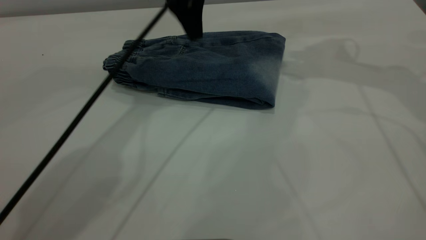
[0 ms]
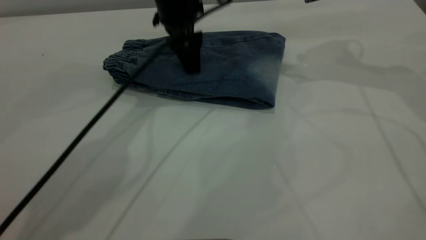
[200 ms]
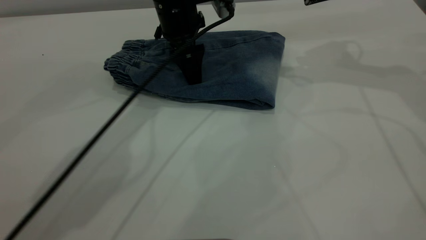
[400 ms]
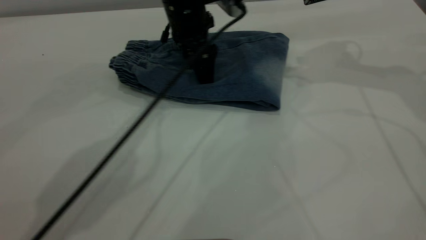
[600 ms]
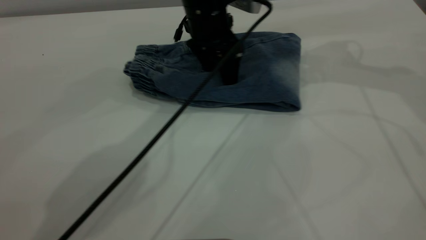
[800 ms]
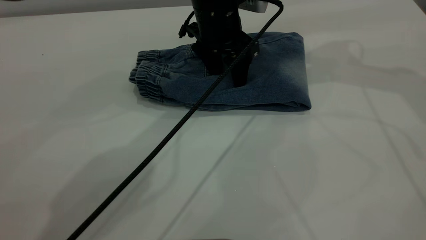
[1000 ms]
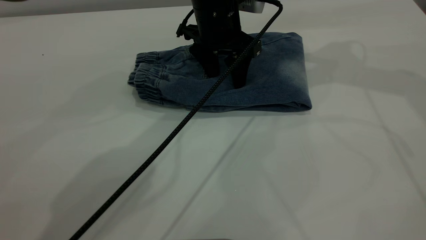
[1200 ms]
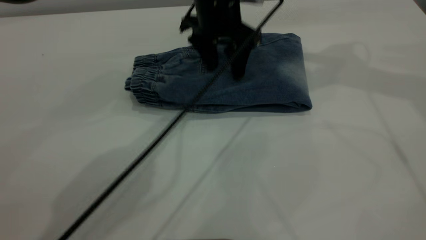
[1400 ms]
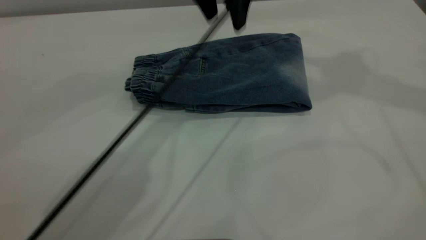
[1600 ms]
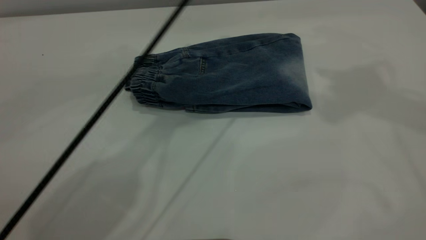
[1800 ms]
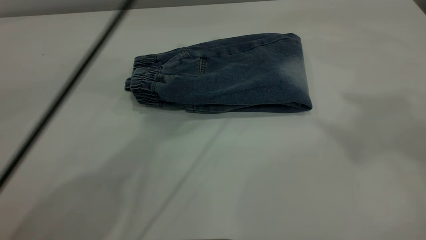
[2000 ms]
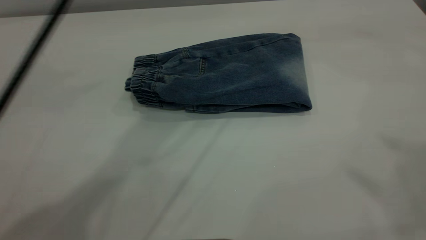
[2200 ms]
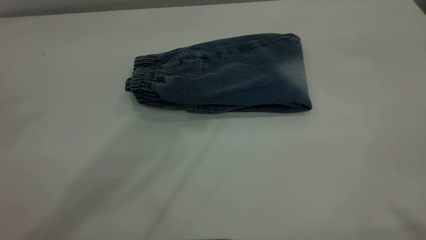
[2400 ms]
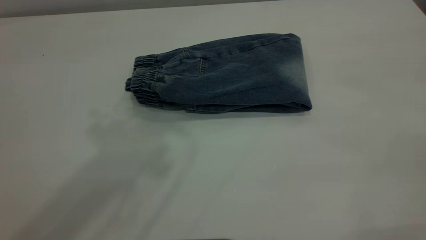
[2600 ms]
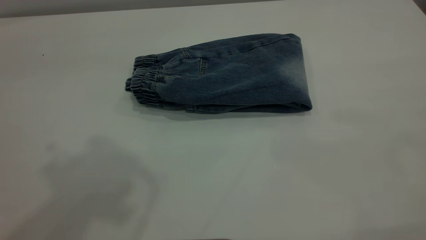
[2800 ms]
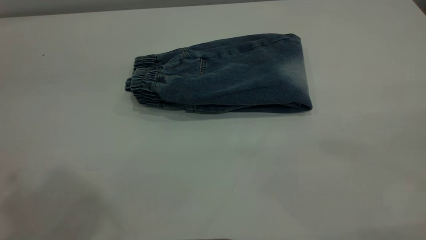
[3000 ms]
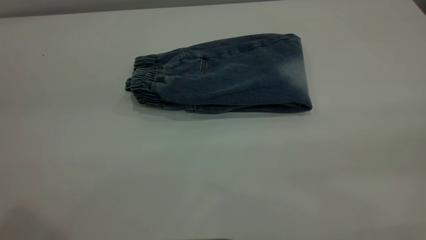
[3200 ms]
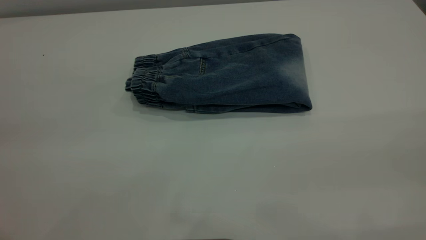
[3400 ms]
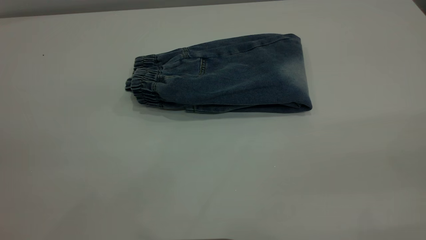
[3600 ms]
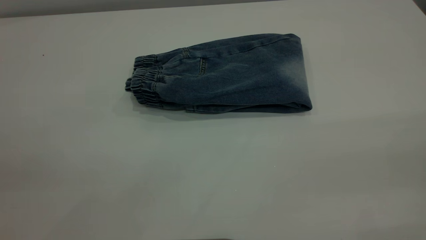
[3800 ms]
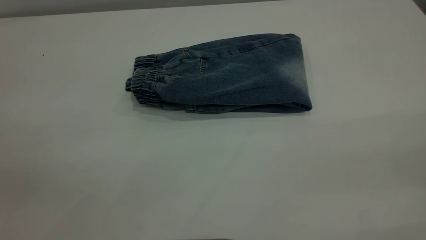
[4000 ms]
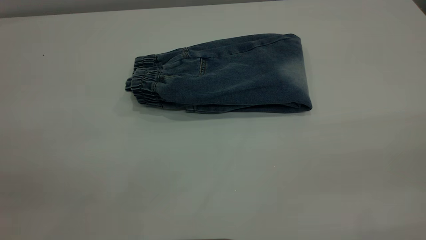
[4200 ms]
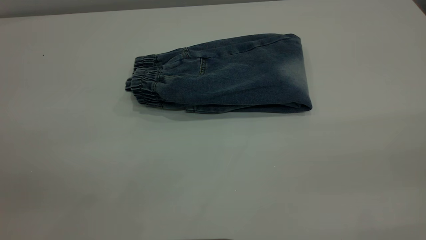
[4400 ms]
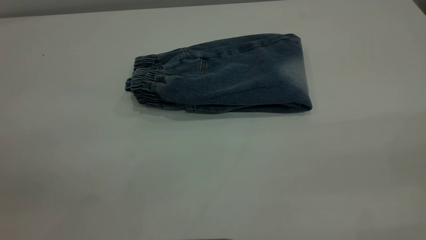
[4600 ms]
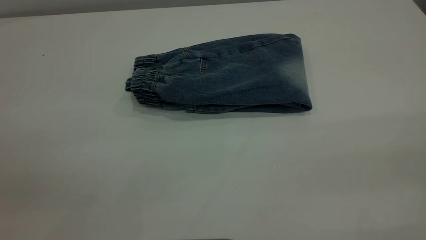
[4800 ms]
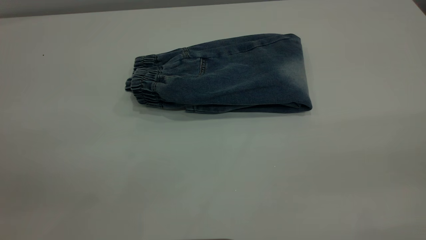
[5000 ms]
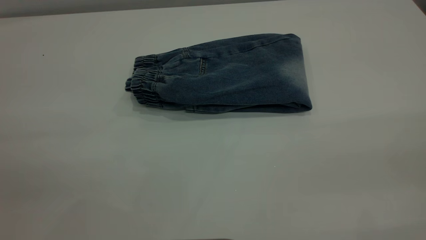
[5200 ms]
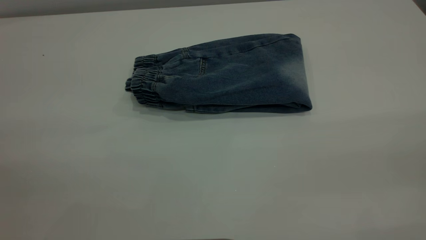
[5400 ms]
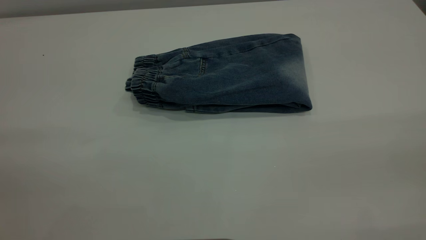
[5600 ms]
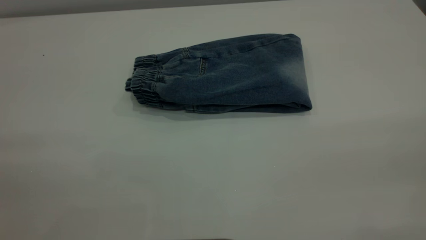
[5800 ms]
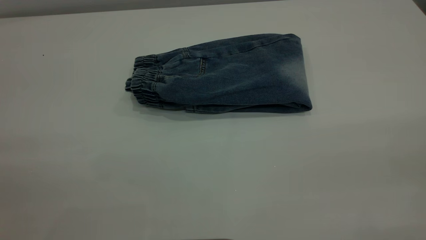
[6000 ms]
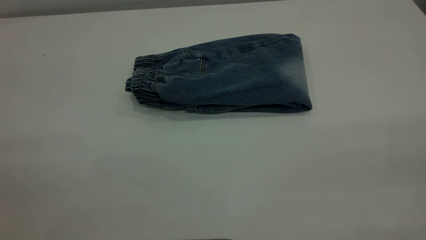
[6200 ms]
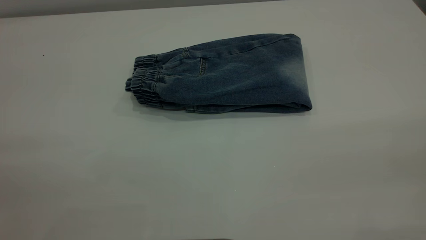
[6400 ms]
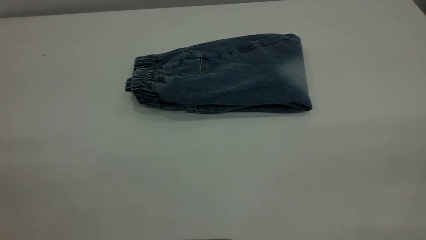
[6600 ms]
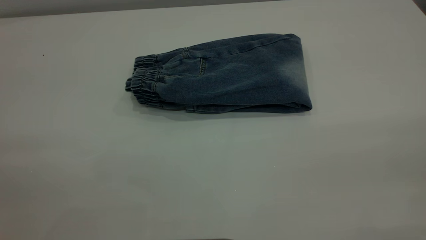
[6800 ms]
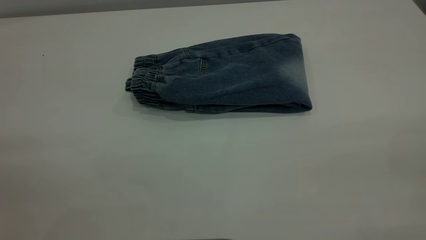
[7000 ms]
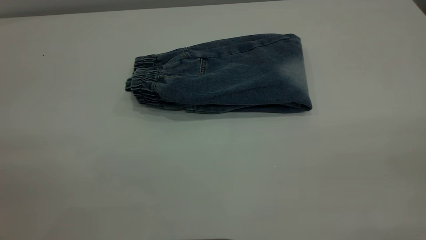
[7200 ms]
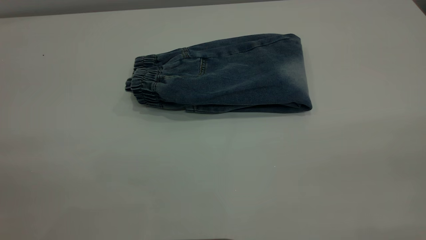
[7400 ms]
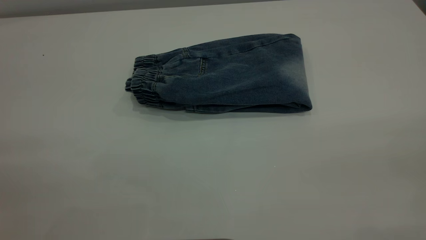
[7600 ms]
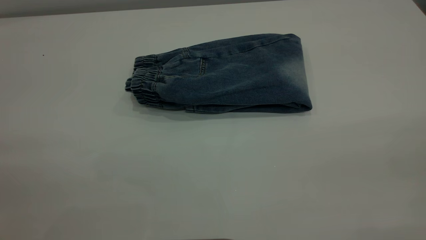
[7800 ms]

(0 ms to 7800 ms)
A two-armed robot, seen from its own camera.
0 ms - 1600 ms: The left gripper shifts approximately 5 cm to the right. The right gripper goes roughly 20 cm upward and backward.
1600 ms - 3200 ms: The left gripper heads backward, to the left and upward, covering about 50 cm. Meanwhile the right gripper moves backward, some 40 cm.
